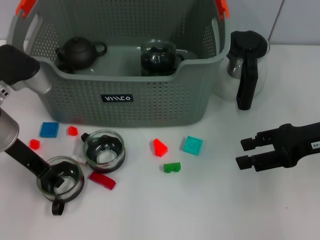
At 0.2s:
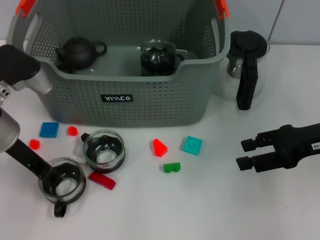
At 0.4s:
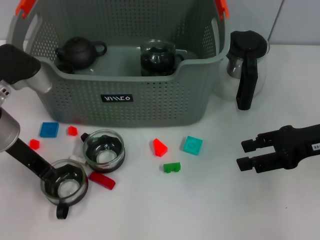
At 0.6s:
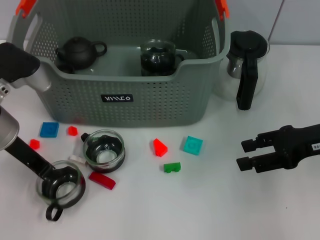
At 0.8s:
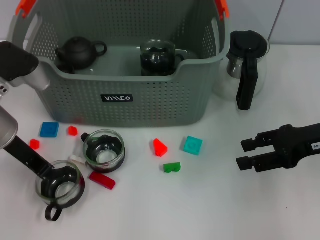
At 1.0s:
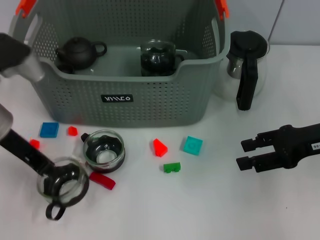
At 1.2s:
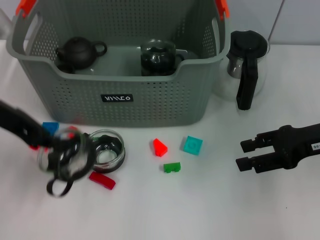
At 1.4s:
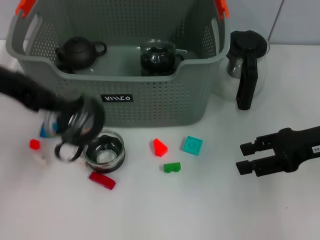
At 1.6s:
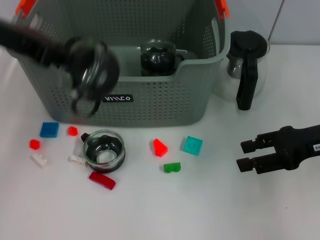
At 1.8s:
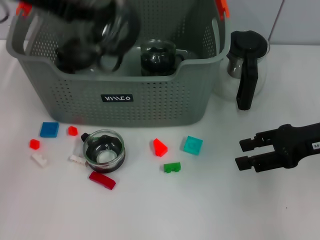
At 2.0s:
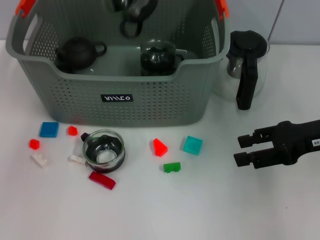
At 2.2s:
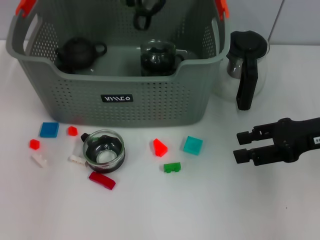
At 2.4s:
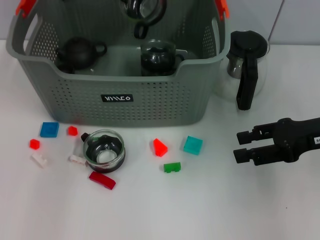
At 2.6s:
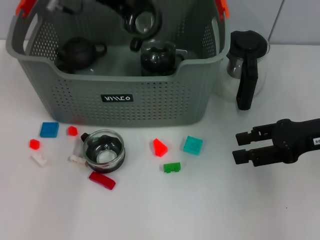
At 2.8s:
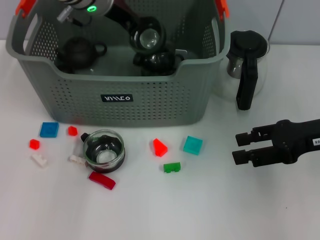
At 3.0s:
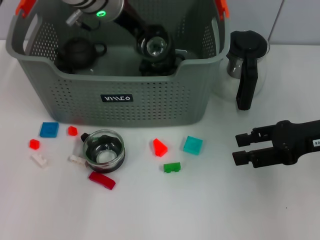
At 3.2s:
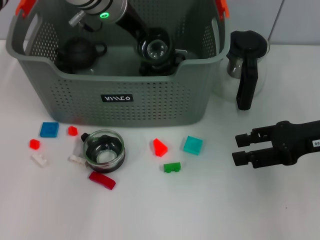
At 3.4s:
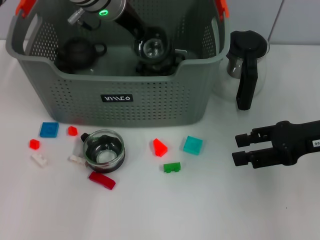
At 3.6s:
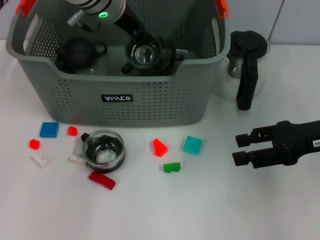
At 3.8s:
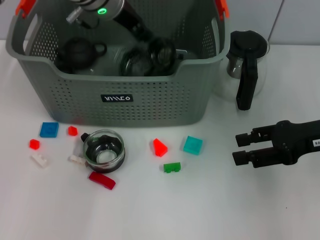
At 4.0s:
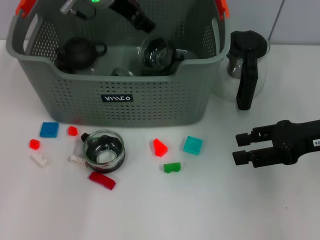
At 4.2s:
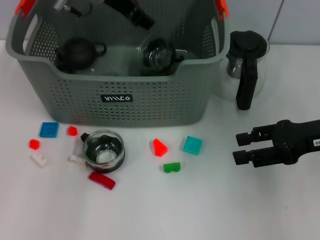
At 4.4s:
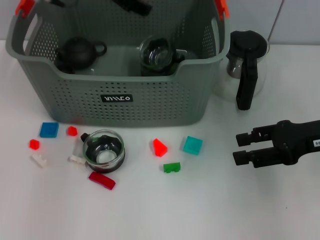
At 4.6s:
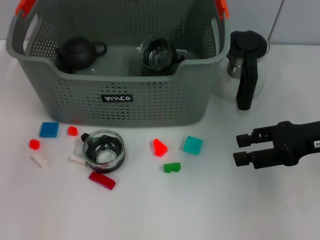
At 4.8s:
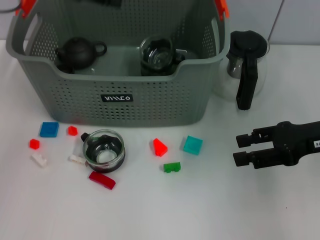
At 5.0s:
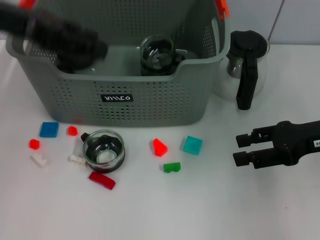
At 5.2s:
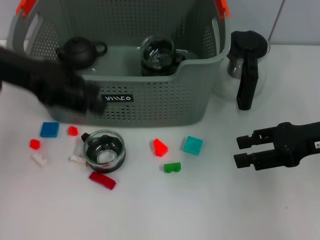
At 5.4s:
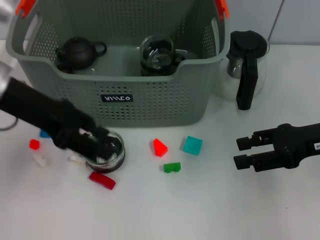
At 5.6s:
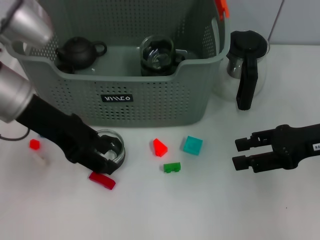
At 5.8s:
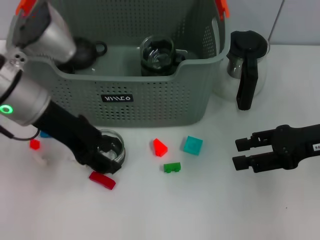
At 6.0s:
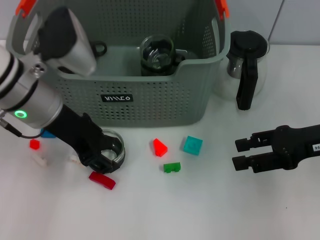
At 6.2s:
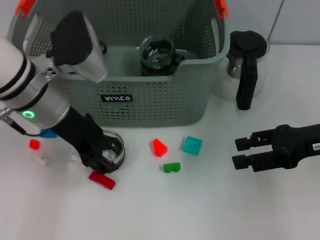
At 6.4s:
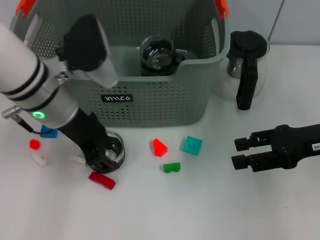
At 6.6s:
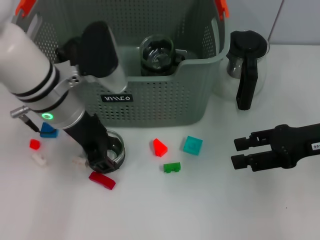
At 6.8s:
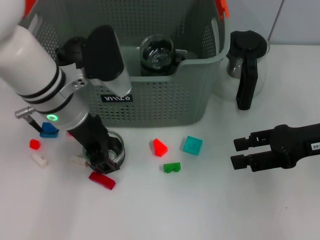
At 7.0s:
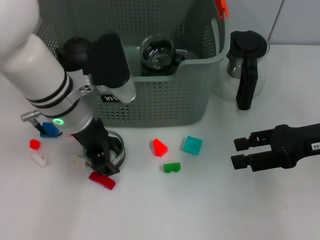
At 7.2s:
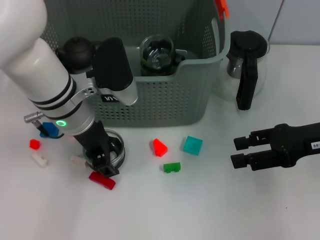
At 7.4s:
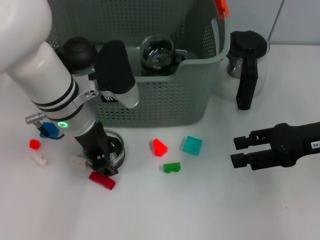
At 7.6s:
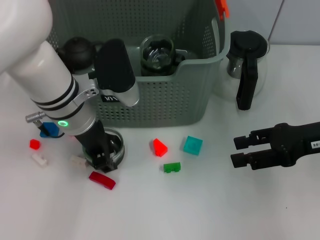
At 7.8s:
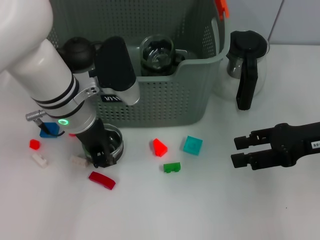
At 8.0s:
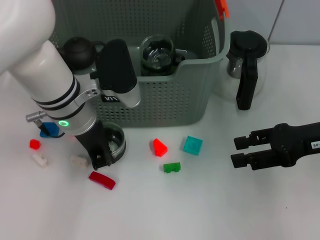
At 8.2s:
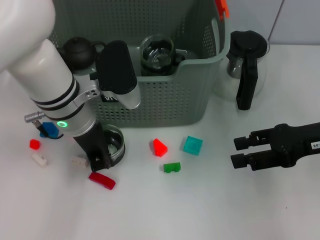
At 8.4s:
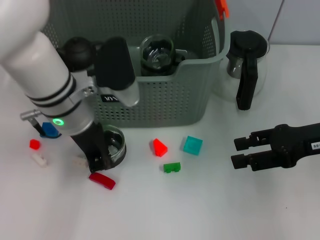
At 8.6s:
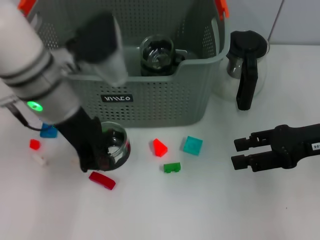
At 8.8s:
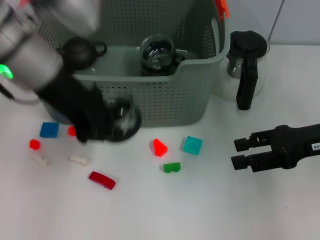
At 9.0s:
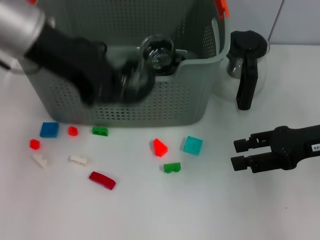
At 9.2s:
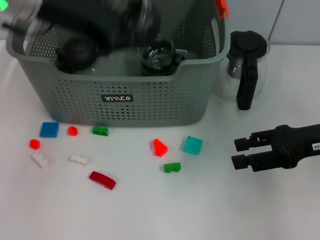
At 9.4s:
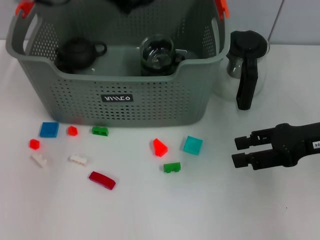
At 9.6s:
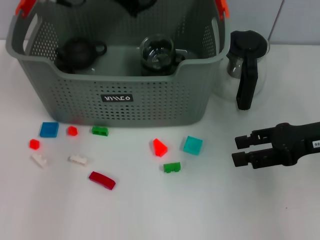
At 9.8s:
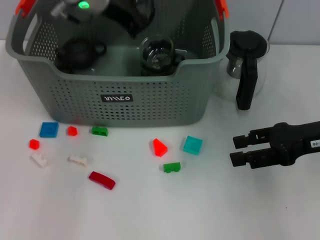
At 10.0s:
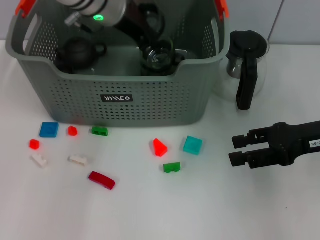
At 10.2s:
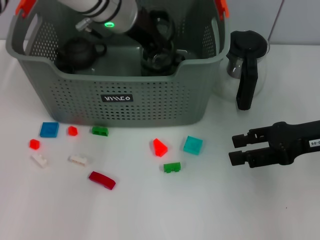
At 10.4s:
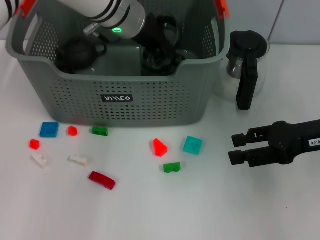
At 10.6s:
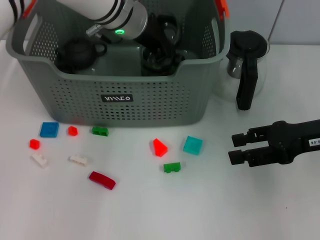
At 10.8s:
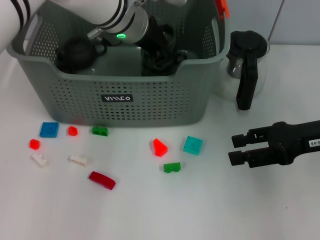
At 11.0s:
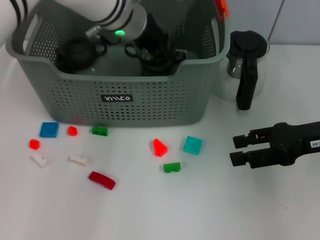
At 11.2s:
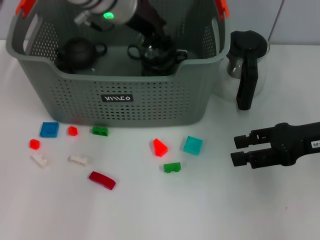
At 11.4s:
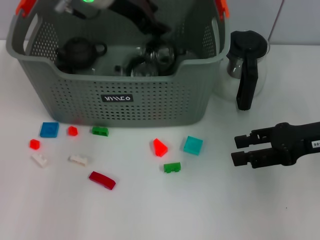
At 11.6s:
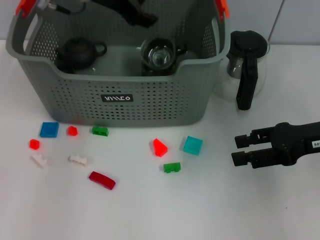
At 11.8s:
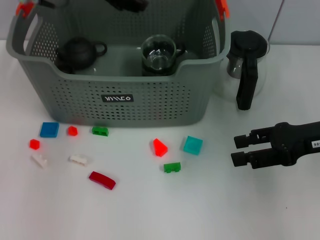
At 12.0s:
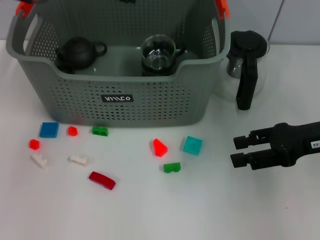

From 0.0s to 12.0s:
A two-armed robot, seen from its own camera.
Task of the whole recording: pick up the teacup on the table and place it into the storage bin, pick up the block on the table and place it into the storage bin.
Step, from 1.2s to 4.2s: Place the cup in the storage box with left gripper.
Step, from 4.4s to 8.6s: Grasp the cup with left gripper.
Step, from 8.8s to 11.6s: Place the cup in the storage box with left gripper.
From 0.0s to 1.6s: The left gripper goes about 15 cm upward, and closes.
From 1.6s to 3.0s: The left gripper goes some 20 cm to the right, forward and downward.
From 3.0s to 4.4s: The left gripper shifts about 5 cm upward, and opens its fingers.
From 4.4s to 6.0s: The left gripper travels backward and downward by some 15 cm.
From 6.0s to 7.6s: The left gripper shifts by roughly 5 cm.
From 7.6s to 9.0s: The left gripper shifts approximately 15 cm upward, and closes up.
From 9.0s to 10.4s: The left gripper travels forward, to the right and downward by approximately 15 cm.
From 10.4s to 12.0s: The left gripper shifts roughly 15 cm to the left and upward, and opens up.

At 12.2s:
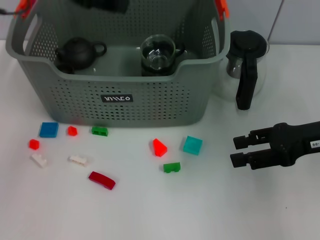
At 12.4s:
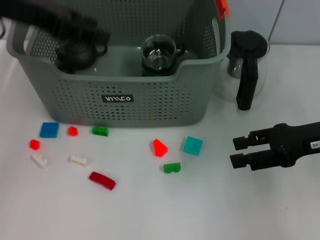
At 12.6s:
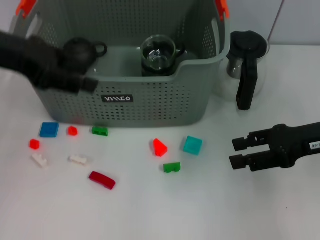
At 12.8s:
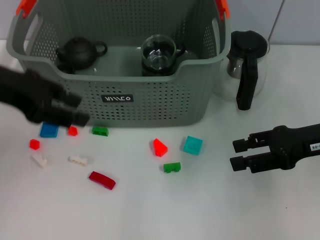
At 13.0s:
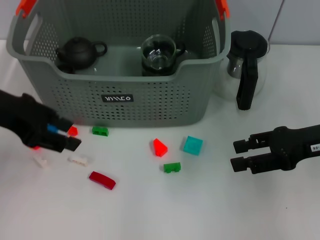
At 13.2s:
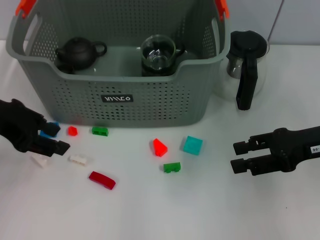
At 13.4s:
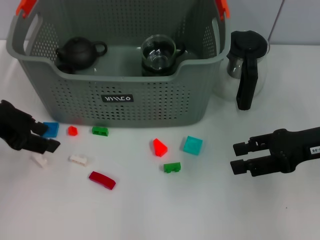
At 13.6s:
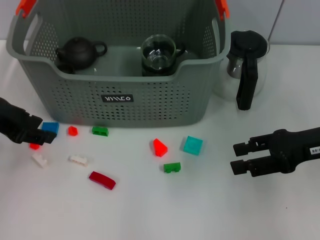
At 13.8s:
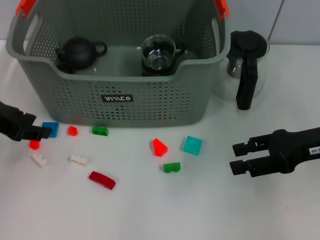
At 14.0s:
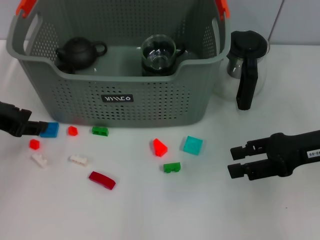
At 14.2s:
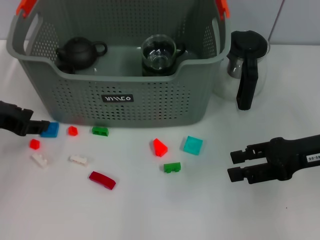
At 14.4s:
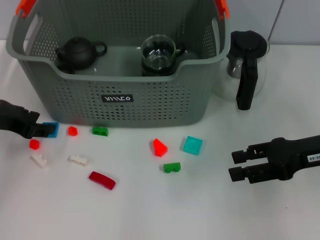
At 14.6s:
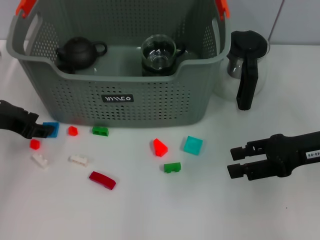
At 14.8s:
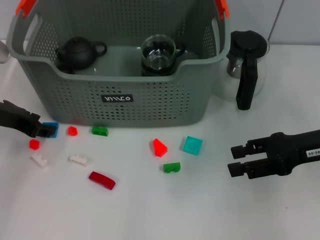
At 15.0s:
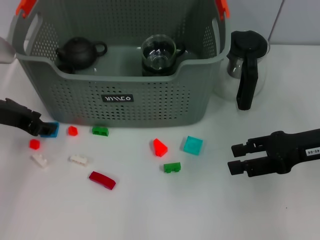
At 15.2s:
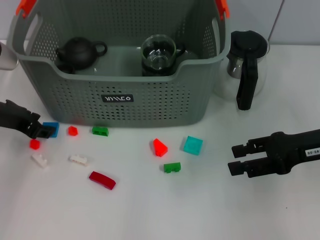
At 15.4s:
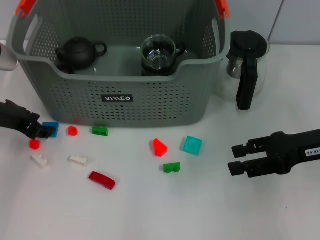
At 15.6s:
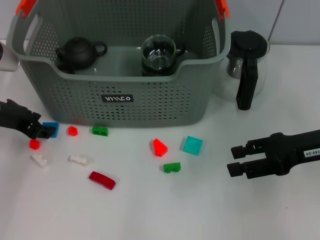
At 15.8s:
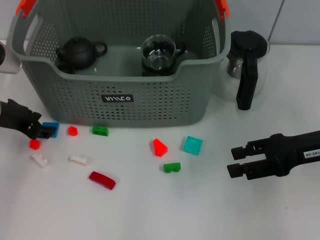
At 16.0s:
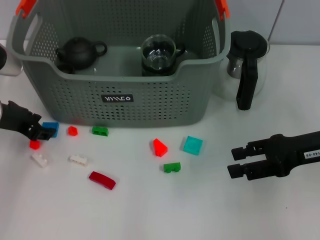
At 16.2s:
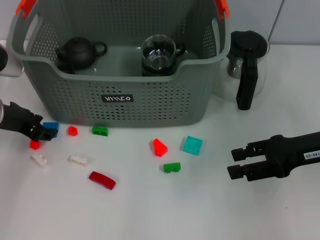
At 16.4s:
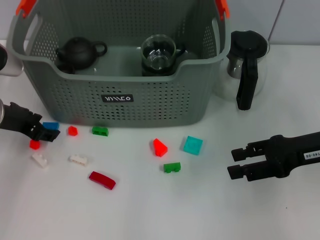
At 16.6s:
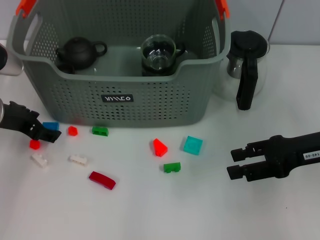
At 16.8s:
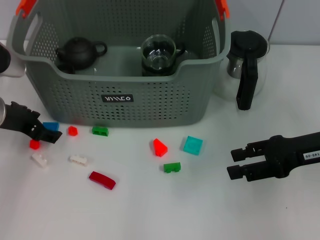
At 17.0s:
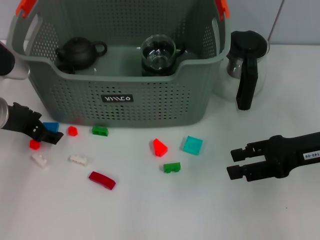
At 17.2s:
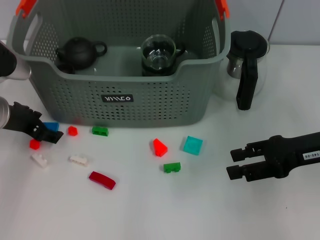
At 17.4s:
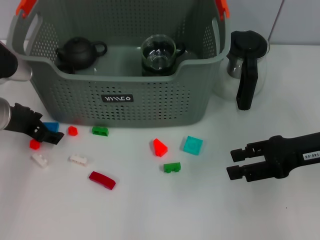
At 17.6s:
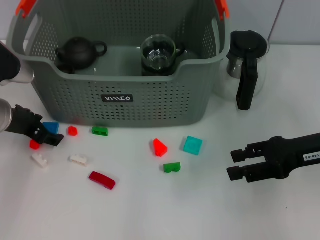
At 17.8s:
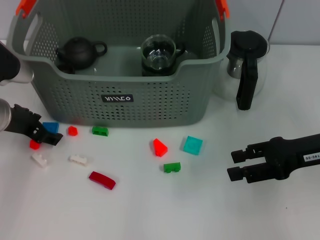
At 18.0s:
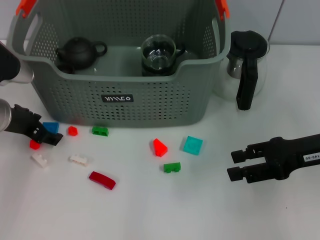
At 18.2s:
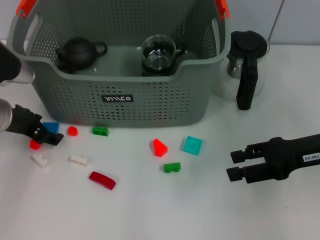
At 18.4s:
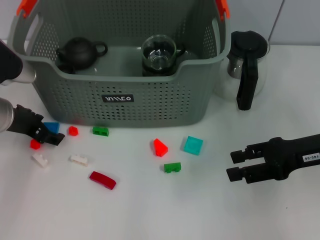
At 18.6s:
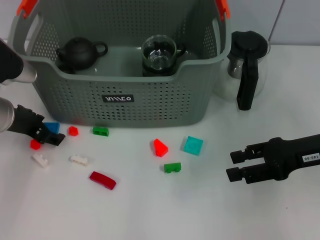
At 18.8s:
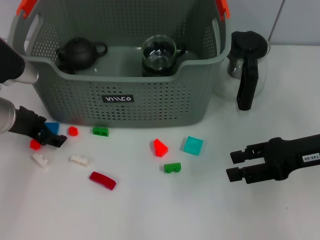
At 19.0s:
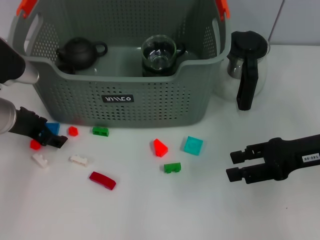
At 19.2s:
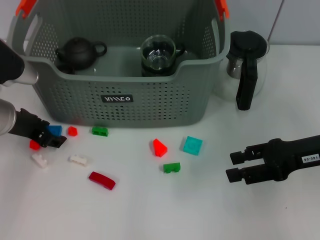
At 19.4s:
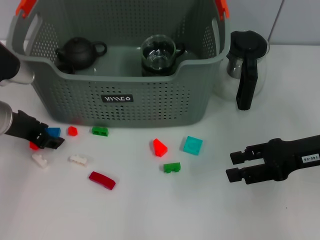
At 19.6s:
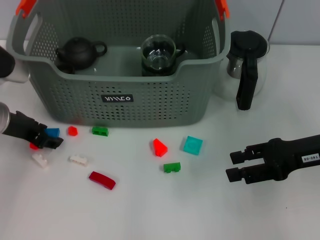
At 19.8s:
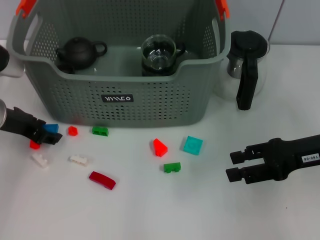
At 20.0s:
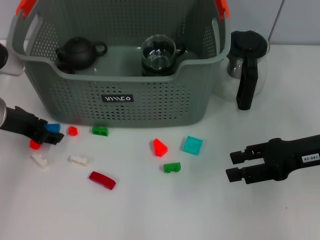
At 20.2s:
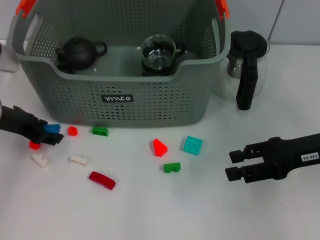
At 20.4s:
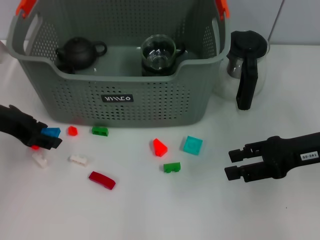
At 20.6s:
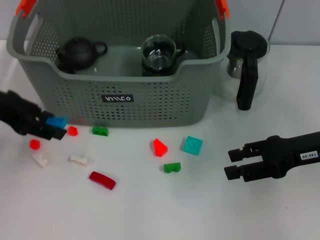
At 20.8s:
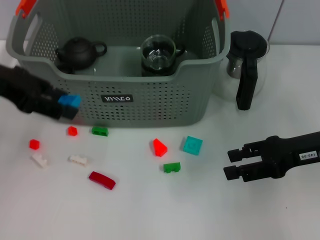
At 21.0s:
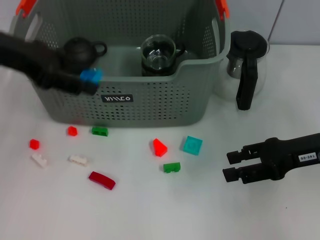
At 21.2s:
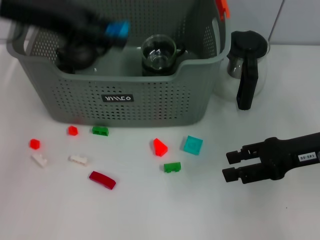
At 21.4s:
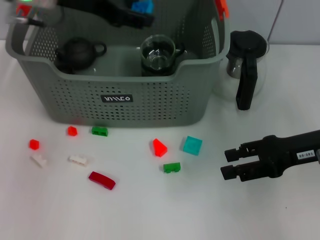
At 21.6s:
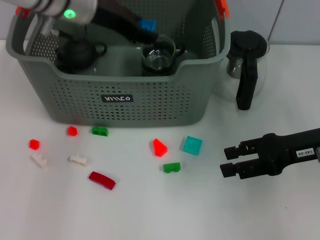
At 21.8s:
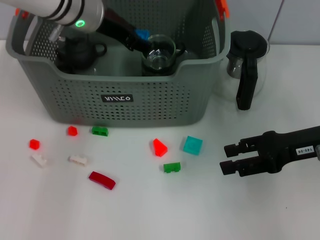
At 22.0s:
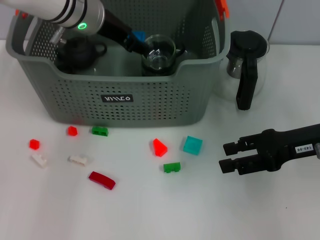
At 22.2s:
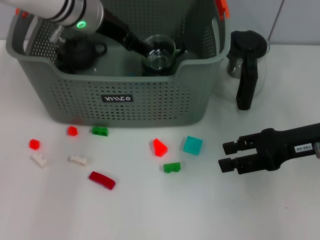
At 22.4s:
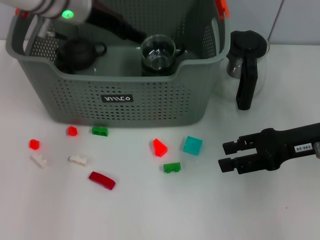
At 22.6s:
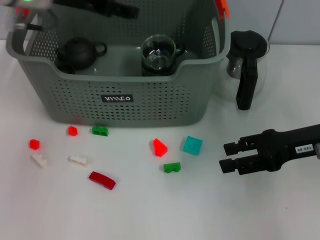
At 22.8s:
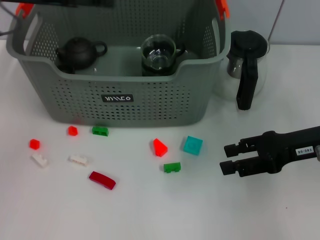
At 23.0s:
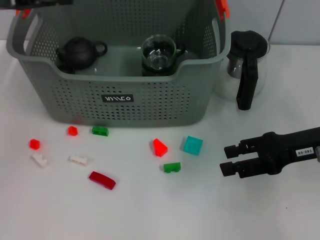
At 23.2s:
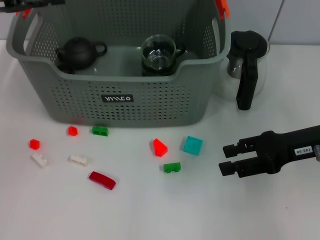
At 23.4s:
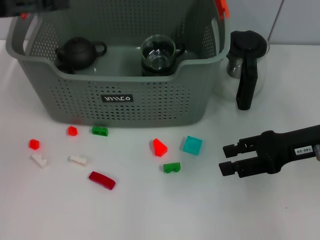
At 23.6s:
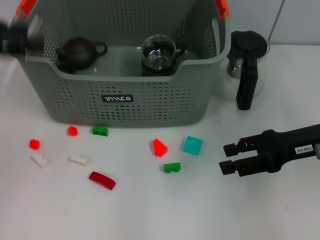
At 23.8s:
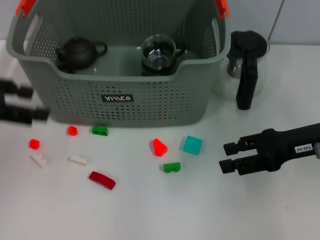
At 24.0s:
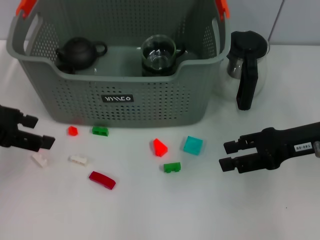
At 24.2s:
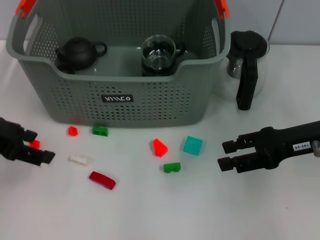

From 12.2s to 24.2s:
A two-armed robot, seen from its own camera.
Task of the whole recording: pick up the teacup on the table and place it into the storage bin, pick up the block on the table and place it into the storage bin.
Step, from 12.2s to 19.8s: Grasp the dark blue block with left gripper.
Step, from 20.0s to 22.2s: Place the dark blue block in the storage box with left gripper.
From 12.2s to 13.8s: The left gripper heads downward, backward and to the left, covering some 15 cm.
From 13.8s to 15.2s: The left gripper goes about 5 cm downward.
From 15.2s to 16.6s: Both grippers stay put.
From 16.6s to 19.8s: There are only small adjustments of the grippers.
From 19.8s to 21.2s: The left gripper goes about 15 cm upward.
From 21.2s to 22.6s: The left gripper moves approximately 10 cm to the right and comes back.
From 22.6s to 24.2s: The left gripper goes roughly 15 cm backward, to the left and downward.
